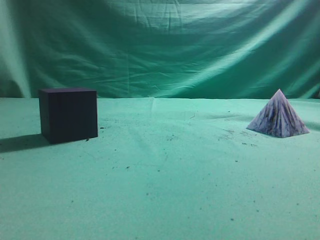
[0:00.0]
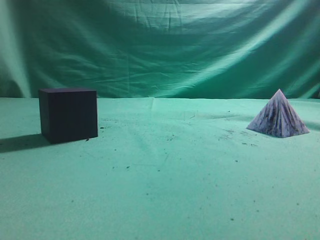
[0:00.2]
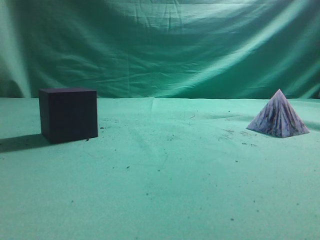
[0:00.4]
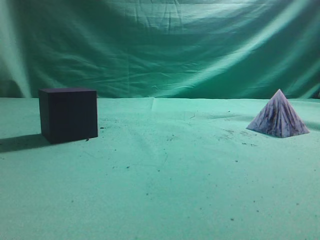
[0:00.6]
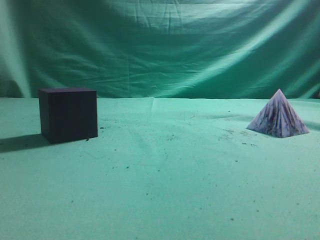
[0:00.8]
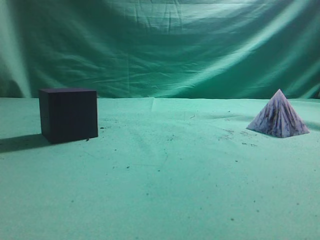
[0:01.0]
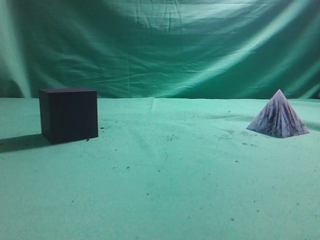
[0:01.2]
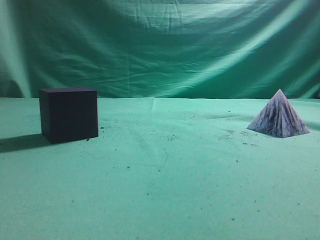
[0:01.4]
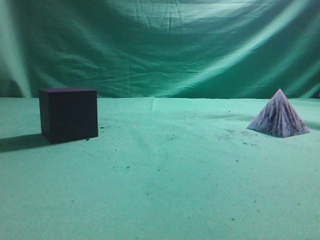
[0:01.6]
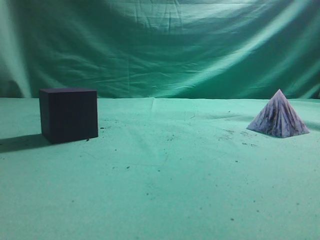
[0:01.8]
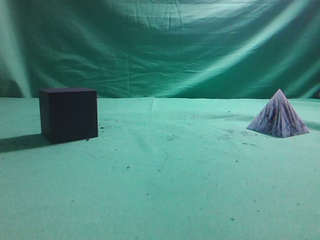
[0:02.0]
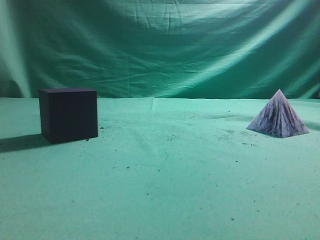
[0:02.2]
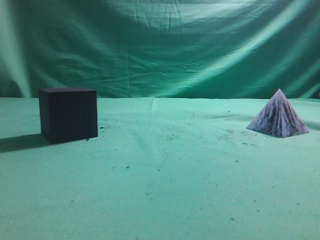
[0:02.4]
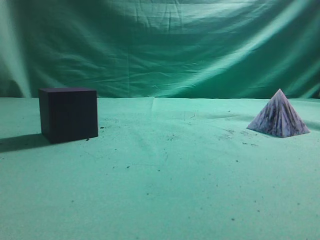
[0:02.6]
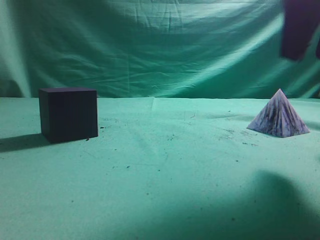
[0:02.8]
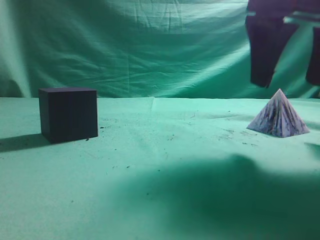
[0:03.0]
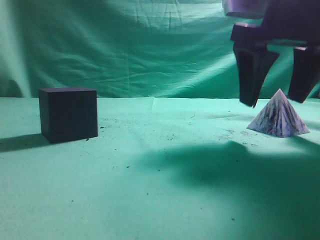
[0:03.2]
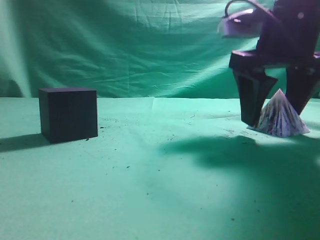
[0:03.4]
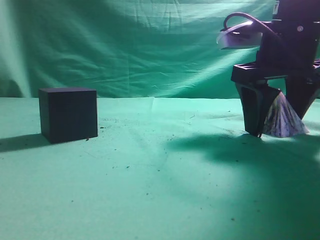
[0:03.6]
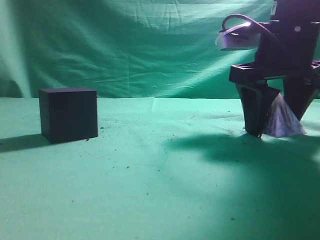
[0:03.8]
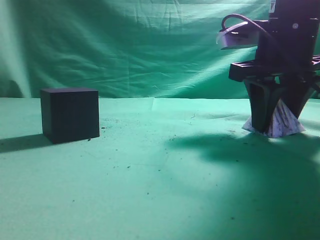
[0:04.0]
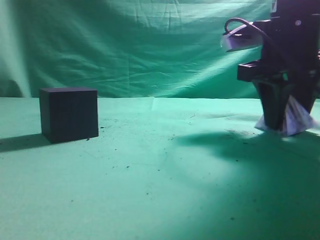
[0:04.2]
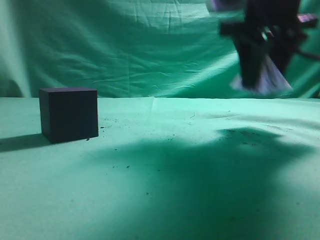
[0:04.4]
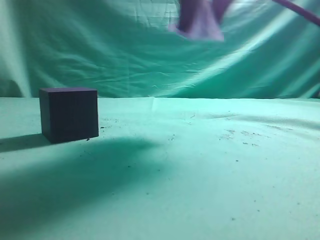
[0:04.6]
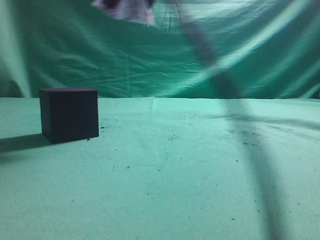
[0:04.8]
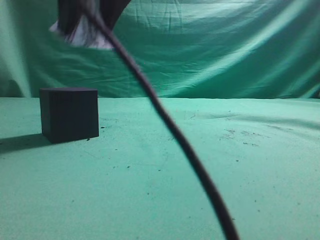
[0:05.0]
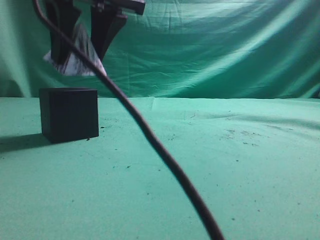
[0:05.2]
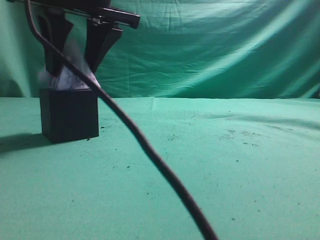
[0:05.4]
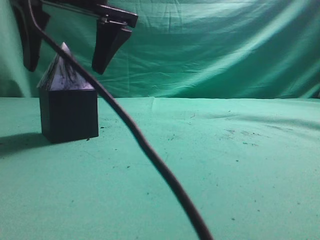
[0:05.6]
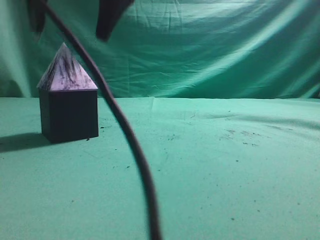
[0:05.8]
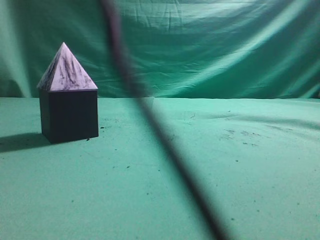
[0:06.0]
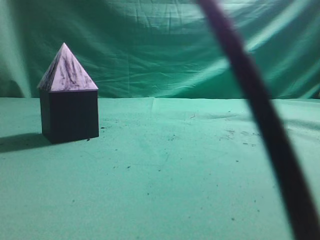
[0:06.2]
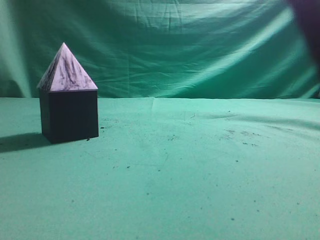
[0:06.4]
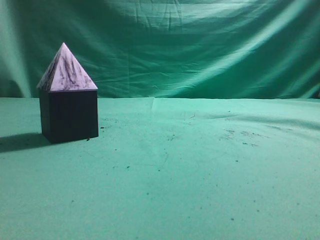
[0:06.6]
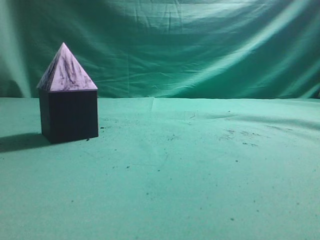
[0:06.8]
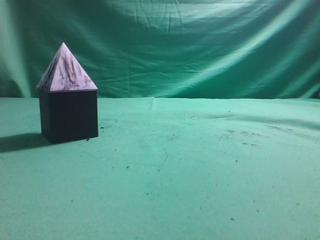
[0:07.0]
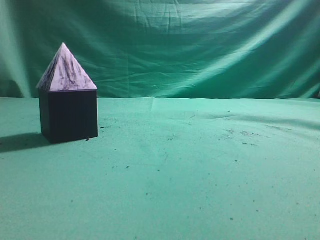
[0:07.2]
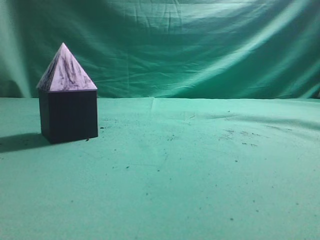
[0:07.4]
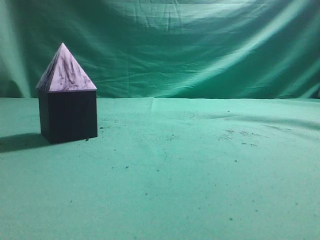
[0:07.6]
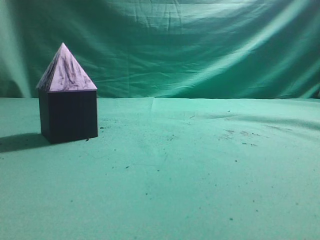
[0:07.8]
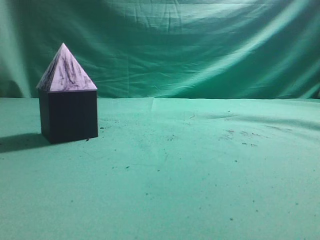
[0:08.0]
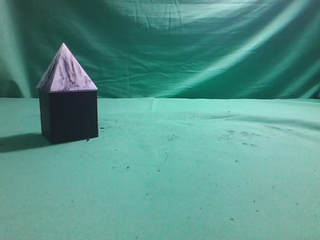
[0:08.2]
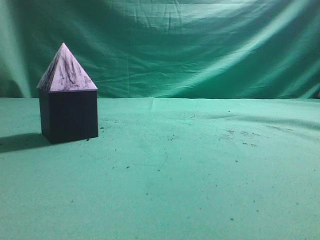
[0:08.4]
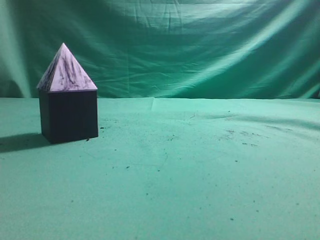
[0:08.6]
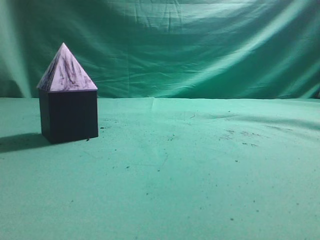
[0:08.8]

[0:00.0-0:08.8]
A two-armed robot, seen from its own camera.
Task of the whole recording: pick up the square pyramid from the table and place it on the cube block.
Step, 0:00.0 to 0:04.2: Grasp the triangular block.
Step, 0:04.4 to 0:05.6: Place the block onto the cube-shaped block.
0:01.4 to 0:03.0: The right gripper travels forward and to the left by roughly 25 cm, and opens up.
0:03.0 to 0:04.4: The right gripper shifts approximately 5 cm forward, and closes up.
0:04.4 to 0:05.8: The right gripper shifts approximately 20 cm to the left, and opens.
0:05.8 to 0:07.4: The right gripper moves to the right, backward and upward, roughly 35 cm, and closes.
